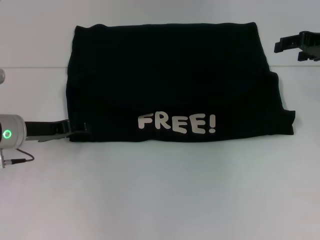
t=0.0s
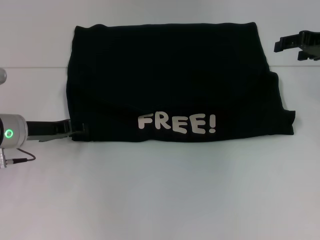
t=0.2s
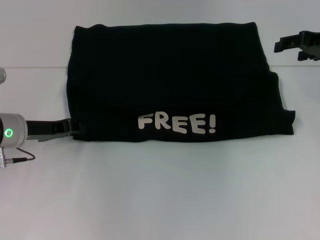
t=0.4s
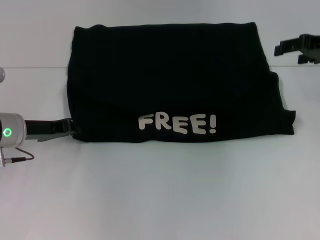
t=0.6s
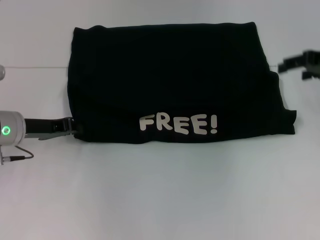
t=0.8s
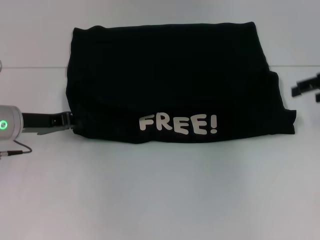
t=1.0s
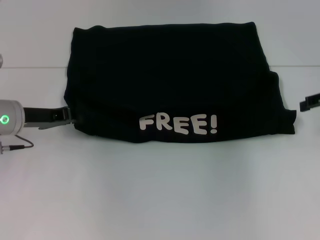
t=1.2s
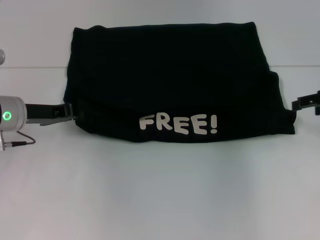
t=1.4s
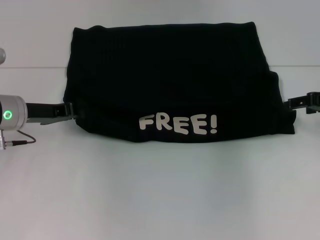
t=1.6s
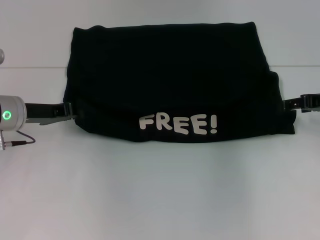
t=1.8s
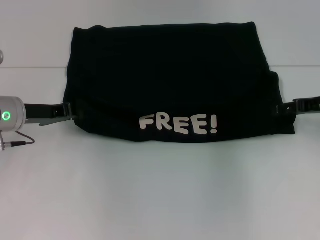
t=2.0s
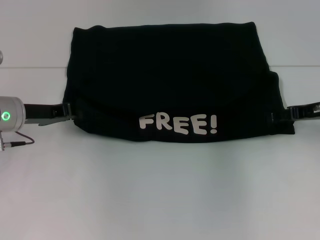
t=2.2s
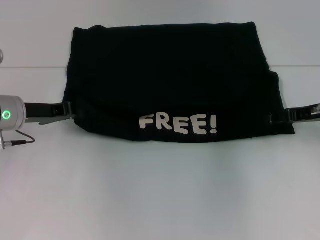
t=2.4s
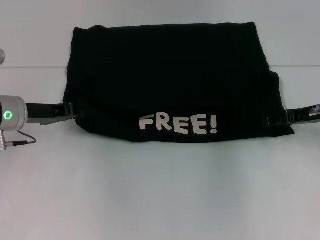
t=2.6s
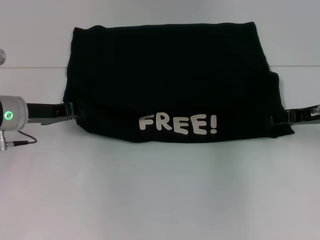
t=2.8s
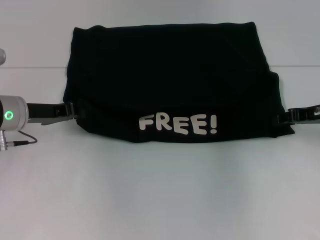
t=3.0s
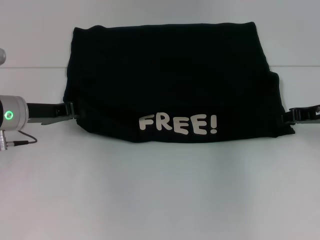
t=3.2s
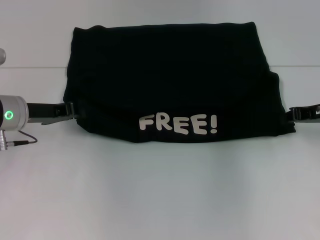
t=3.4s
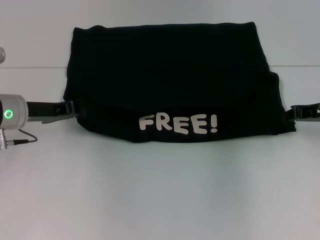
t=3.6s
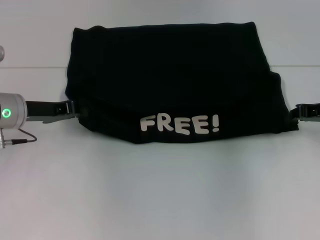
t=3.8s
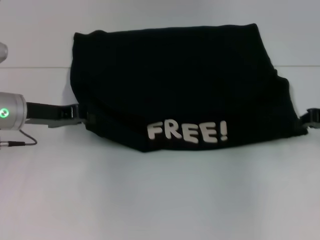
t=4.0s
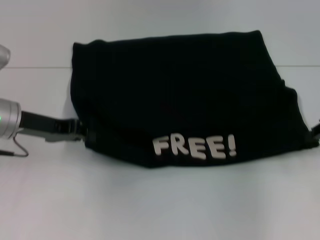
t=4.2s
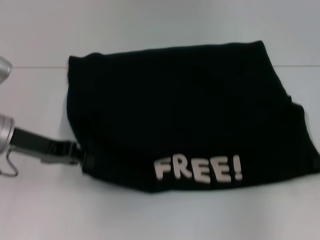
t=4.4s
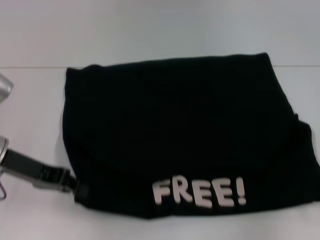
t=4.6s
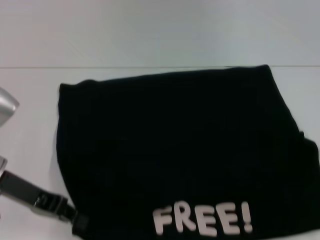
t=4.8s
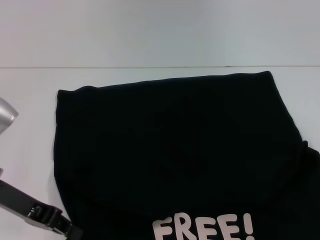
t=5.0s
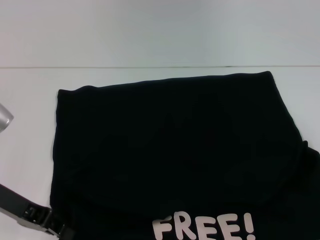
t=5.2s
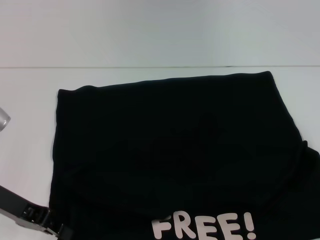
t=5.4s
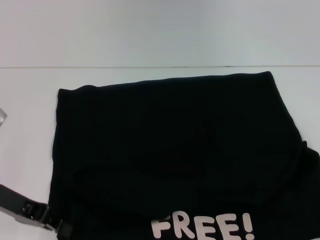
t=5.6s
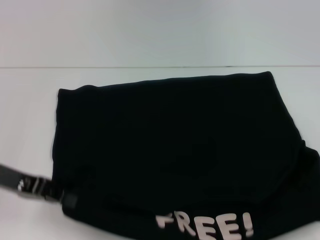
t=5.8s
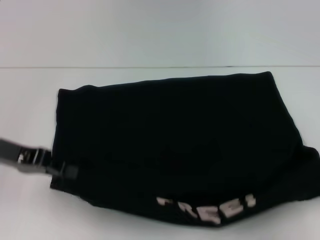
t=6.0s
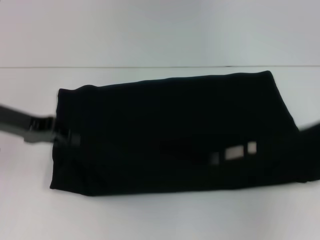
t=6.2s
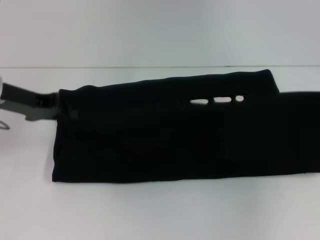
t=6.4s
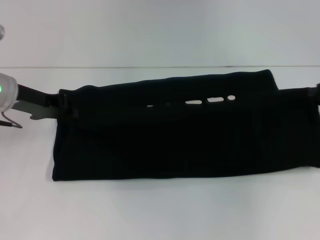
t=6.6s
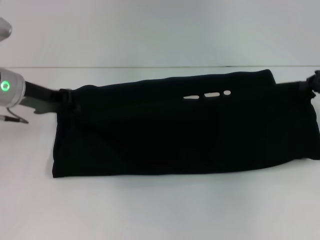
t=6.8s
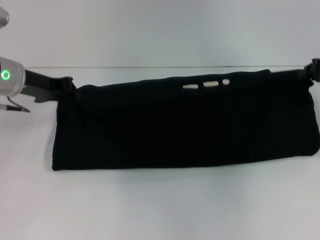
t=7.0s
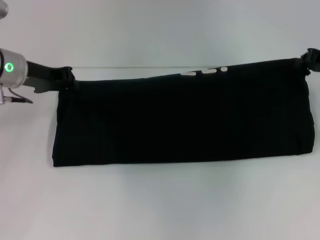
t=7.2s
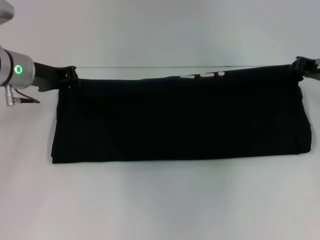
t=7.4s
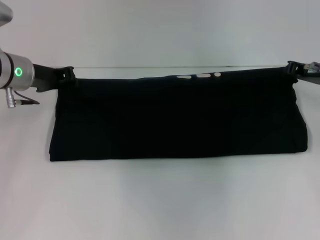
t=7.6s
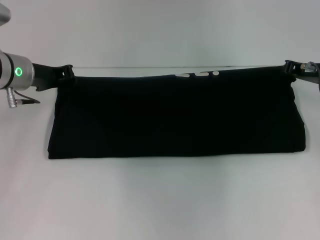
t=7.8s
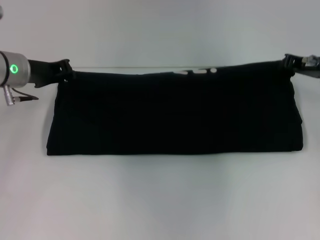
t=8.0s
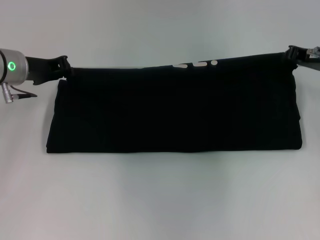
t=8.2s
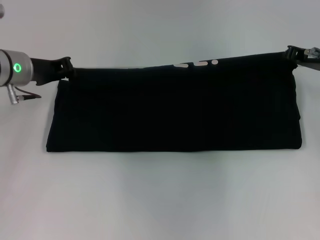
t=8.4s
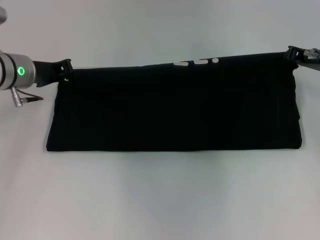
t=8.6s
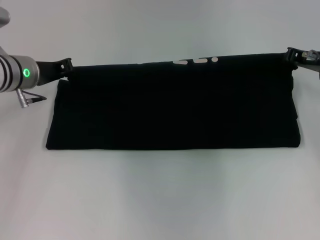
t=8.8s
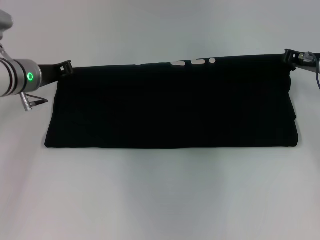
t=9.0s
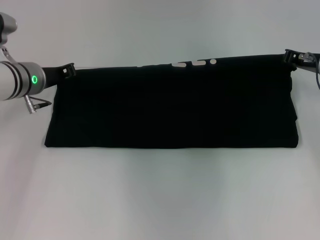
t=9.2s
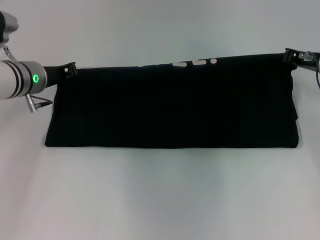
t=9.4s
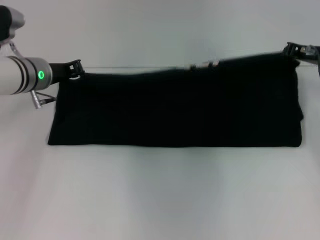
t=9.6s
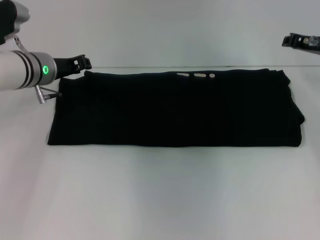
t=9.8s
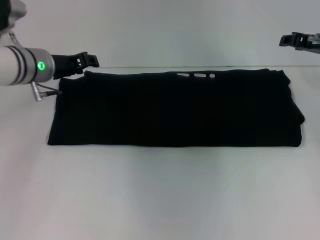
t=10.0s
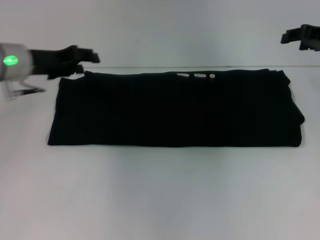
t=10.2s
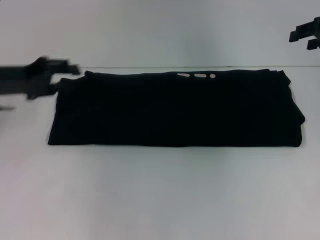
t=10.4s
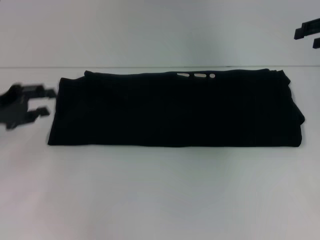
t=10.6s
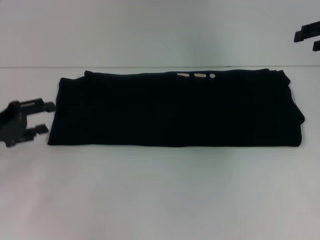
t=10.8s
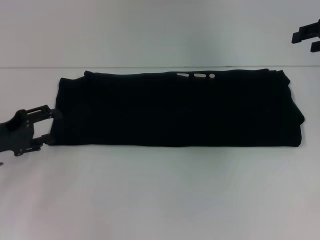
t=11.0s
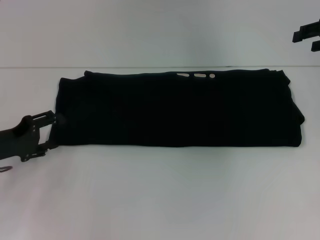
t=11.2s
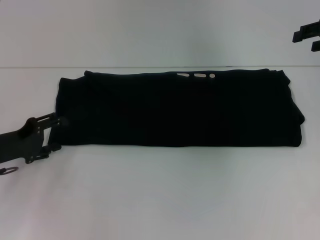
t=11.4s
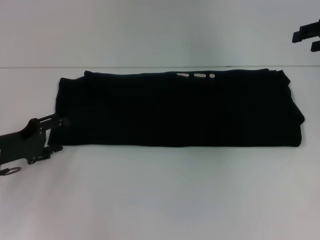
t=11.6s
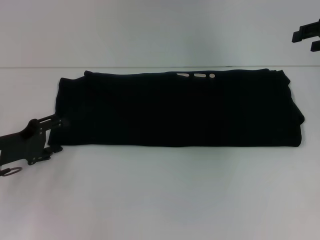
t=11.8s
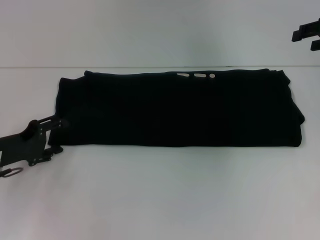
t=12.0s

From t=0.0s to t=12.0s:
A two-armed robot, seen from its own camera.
Step, from t=0.0s to t=4.6s: Pull the clothes with your left hand.
Step, from t=0.0s to t=4.6s: Pull the clothes with your right hand.
Step, from t=4.8s to t=9.6s: Fold the clothes with your right hand.
From t=0.0s to t=1.6s: The left gripper closes up. The right gripper is displaced downward and backward by approximately 10 cm.
From t=1.6s to t=3.0s: The grippers stay close to where they were, moving slightly.
From t=3.0s to t=4.4s: The right gripper moves backward, about 5 cm, and closes; the left gripper ends up approximately 5 cm from where it was.
From t=4.4s to t=6.0s: The right gripper is displaced backward by some 5 cm.
From t=6.0s to t=7.6s: The right gripper heads forward and to the left, covering roughly 20 cm, while the left gripper goes approximately 10 cm forward.
From t=7.6s to t=9.0s: The grippers make only small movements.
From t=9.0s to t=10.4s: The right gripper is displaced upward by about 10 cm, and opens. The left gripper shifts roughly 10 cm to the left and backward, and opens its fingers.
From t=10.4s to t=12.0s: The left gripper heads downward and backward, covering approximately 10 cm.

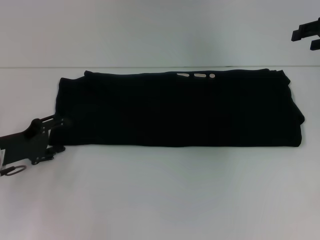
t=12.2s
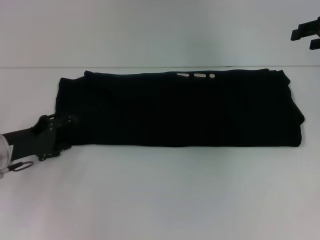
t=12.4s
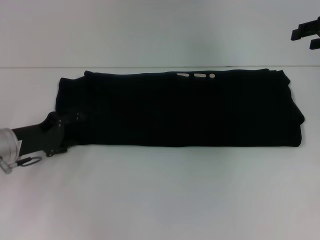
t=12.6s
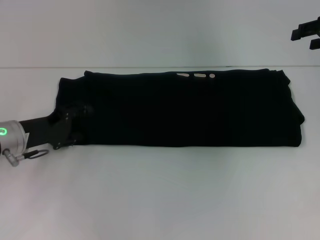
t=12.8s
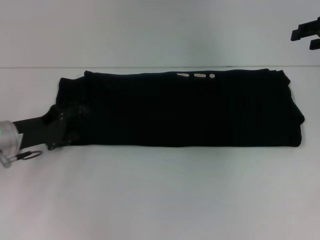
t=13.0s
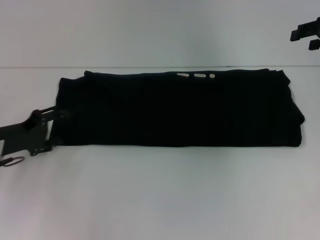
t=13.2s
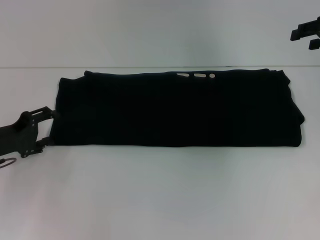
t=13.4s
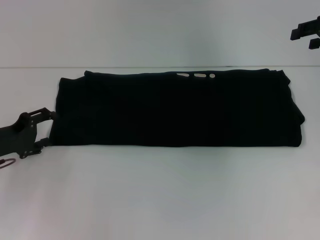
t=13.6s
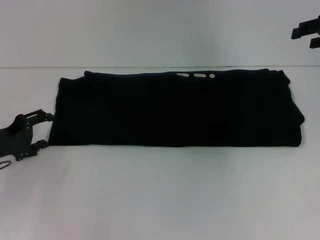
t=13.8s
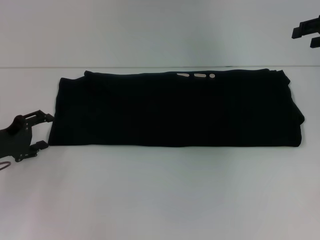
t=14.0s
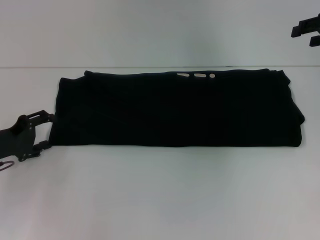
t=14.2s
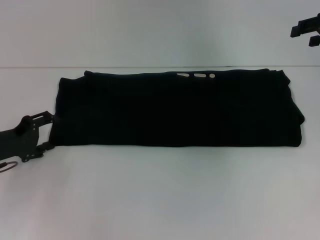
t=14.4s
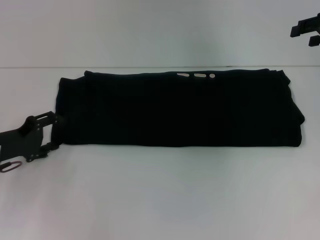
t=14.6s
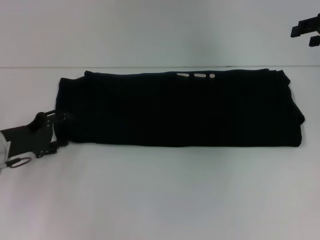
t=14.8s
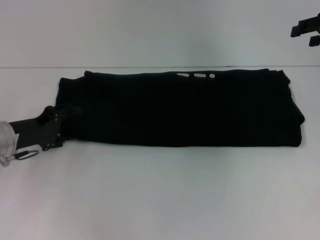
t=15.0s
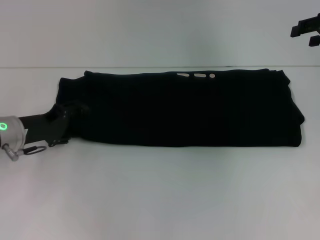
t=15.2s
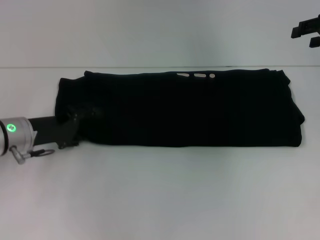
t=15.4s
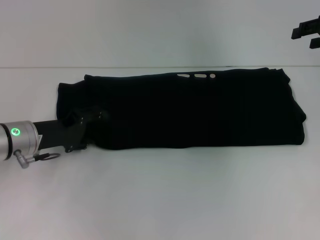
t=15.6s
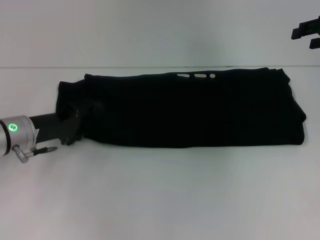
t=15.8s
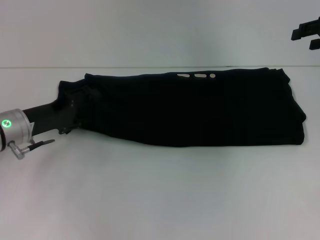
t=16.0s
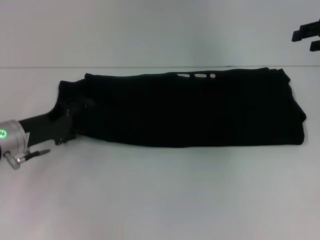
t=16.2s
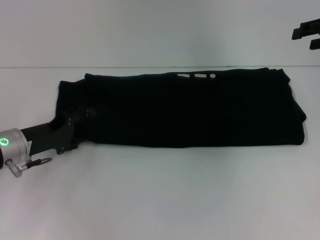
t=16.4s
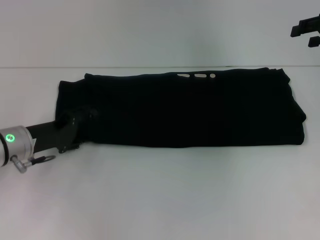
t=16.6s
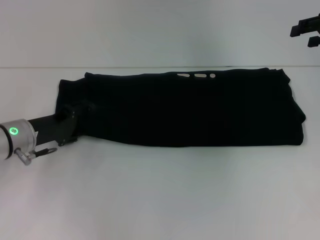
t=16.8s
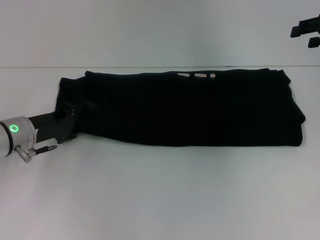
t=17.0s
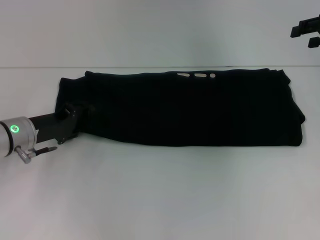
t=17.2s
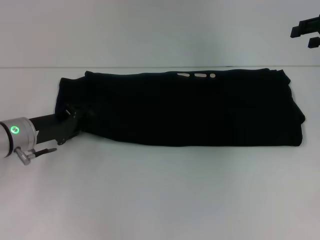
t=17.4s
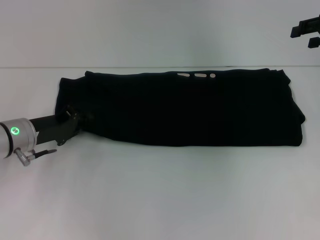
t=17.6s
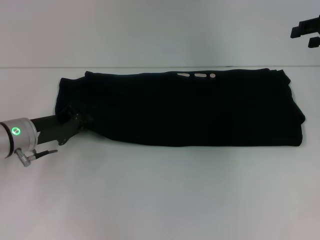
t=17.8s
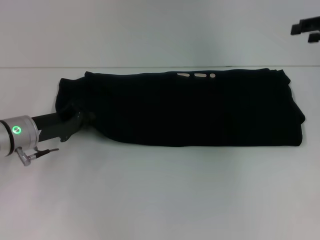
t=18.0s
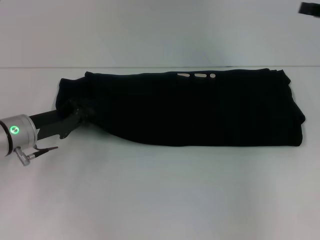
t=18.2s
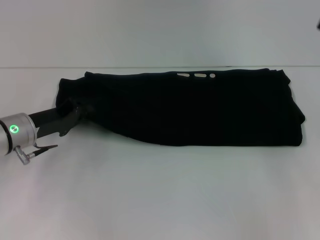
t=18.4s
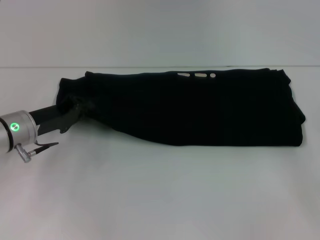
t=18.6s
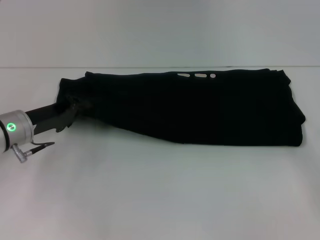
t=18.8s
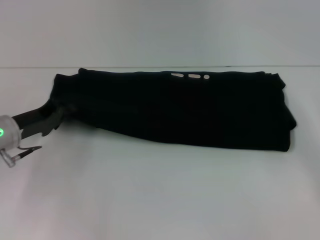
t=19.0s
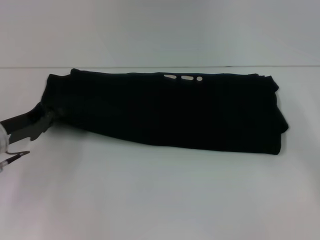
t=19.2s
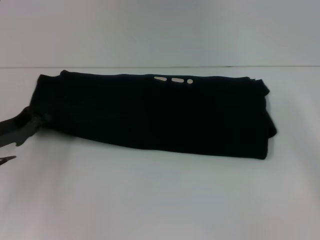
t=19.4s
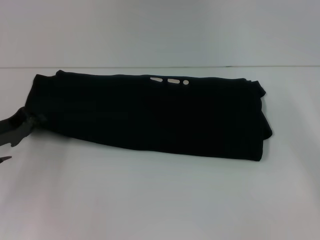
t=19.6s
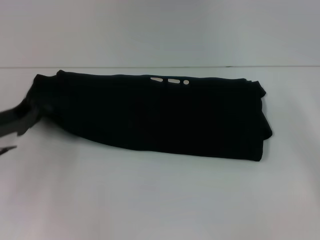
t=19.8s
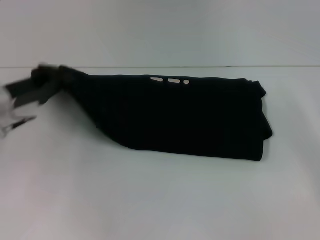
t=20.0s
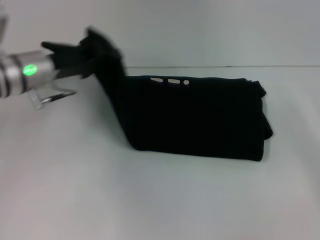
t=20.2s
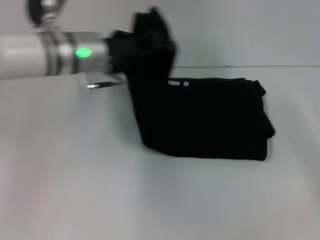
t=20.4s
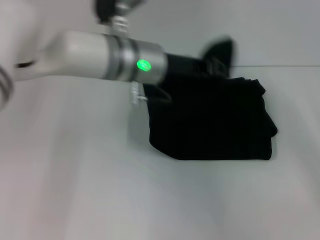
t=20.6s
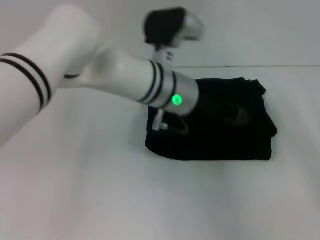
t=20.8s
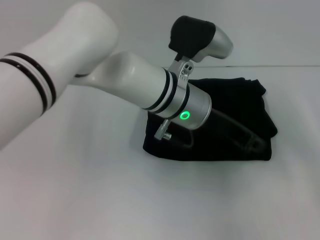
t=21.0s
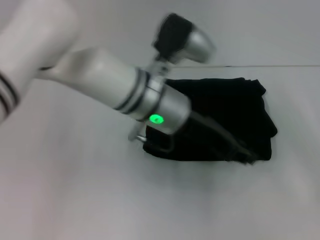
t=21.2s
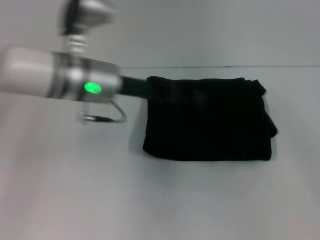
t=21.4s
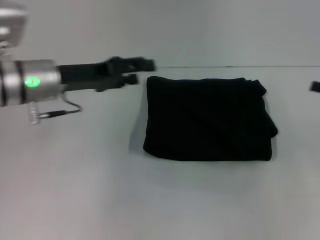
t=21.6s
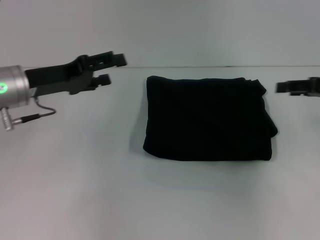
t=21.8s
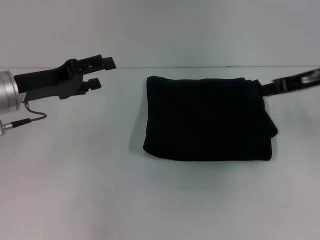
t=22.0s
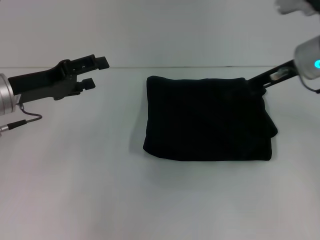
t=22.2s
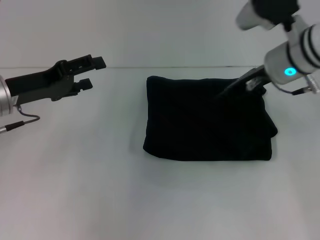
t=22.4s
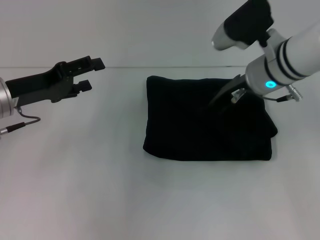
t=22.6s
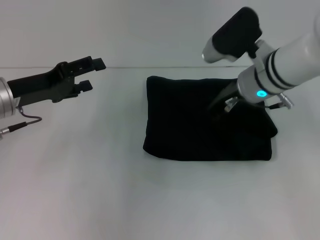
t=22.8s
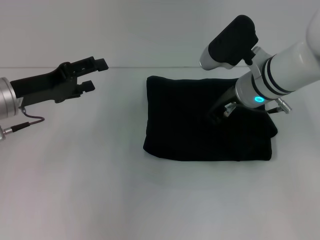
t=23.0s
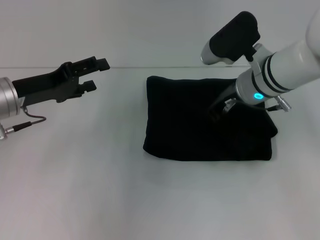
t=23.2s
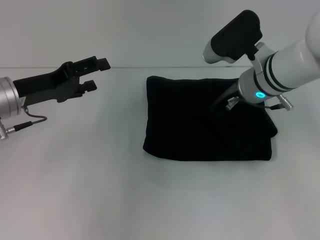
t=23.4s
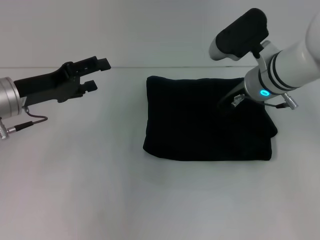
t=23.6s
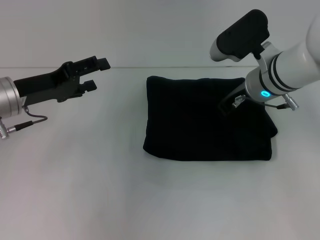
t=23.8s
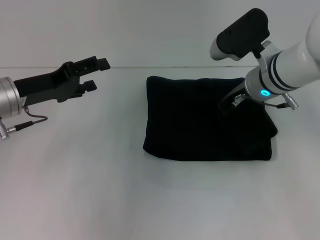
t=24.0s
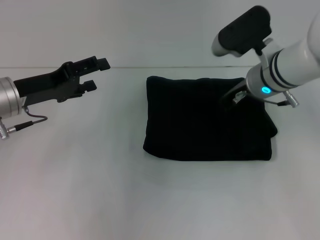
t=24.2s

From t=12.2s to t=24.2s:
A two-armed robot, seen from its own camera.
Step, from t=12.2s to t=21.4s: Fold the clothes with your left hand.
From t=12.2s to t=13.8s: The grippers make only small movements.
From t=13.8s to t=15.2s: The left gripper shifts by about 5 cm.
From t=15.2s to t=16.6s: There are only small adjustments of the grippers.
From t=16.6s to t=18.2s: The left gripper closes up.
From t=18.2s to t=19.8s: The right gripper is displaced backward, downward and to the right by approximately 20 cm; the left gripper goes roughly 5 cm to the left.
From t=19.8s to t=21.2s: The left gripper shifts approximately 30 cm to the right.
From t=21.2s to t=22.6s: The left gripper moves to the left, about 25 cm, and opens. Meanwhile the right gripper moves to the left and forward, some 30 cm.
From t=22.6s to t=24.2s: The right gripper closes up.
